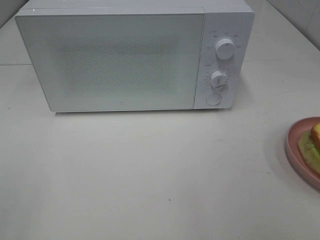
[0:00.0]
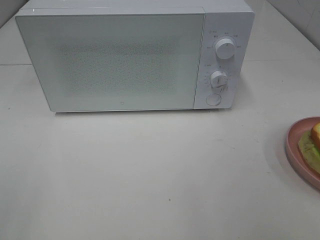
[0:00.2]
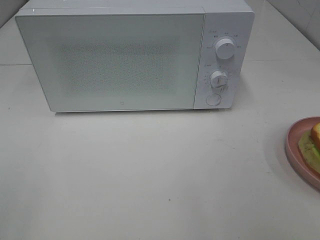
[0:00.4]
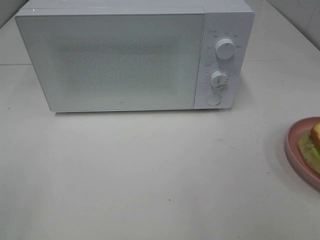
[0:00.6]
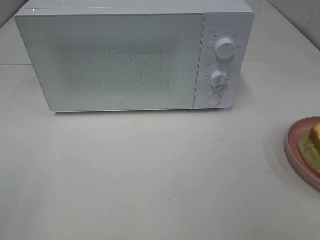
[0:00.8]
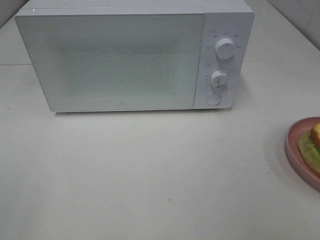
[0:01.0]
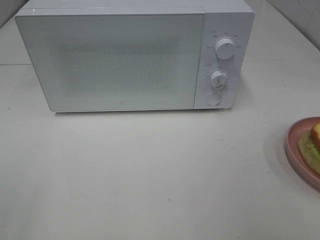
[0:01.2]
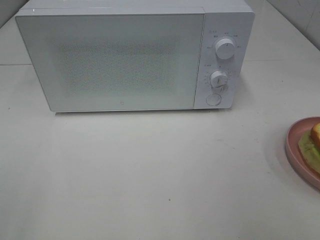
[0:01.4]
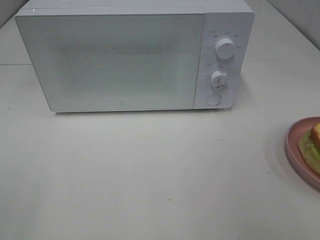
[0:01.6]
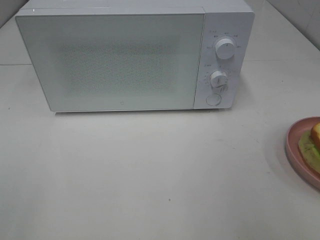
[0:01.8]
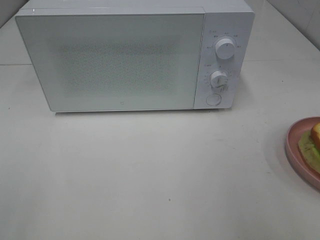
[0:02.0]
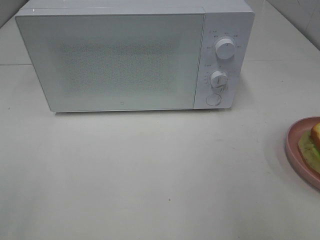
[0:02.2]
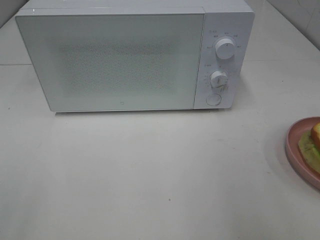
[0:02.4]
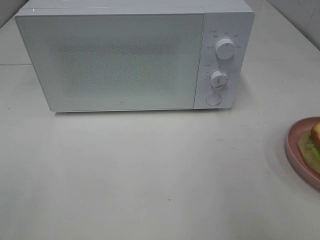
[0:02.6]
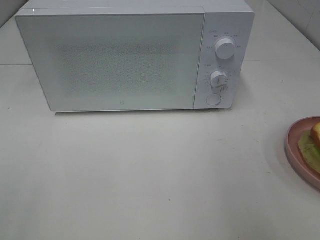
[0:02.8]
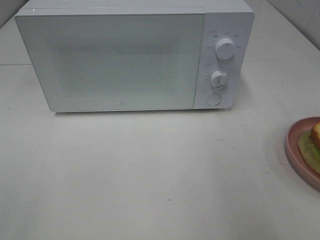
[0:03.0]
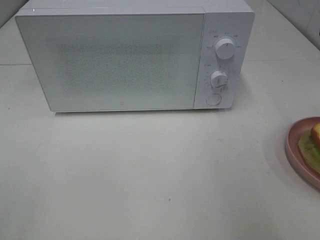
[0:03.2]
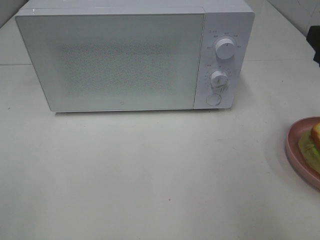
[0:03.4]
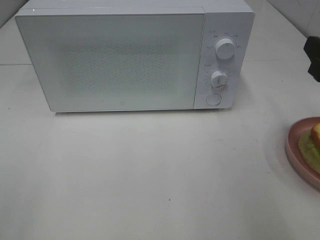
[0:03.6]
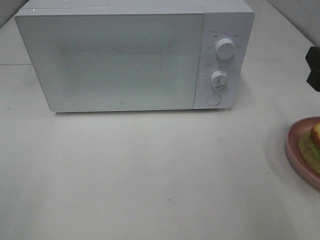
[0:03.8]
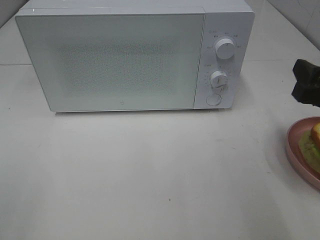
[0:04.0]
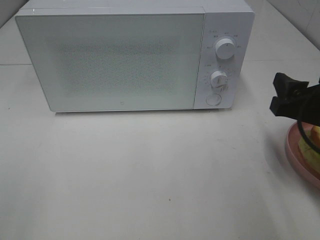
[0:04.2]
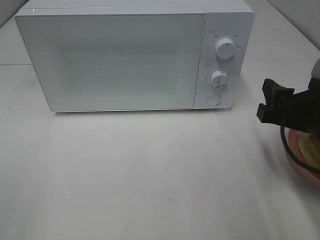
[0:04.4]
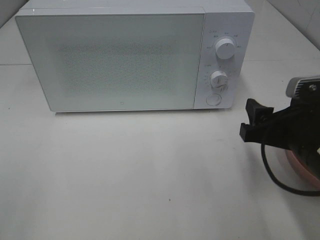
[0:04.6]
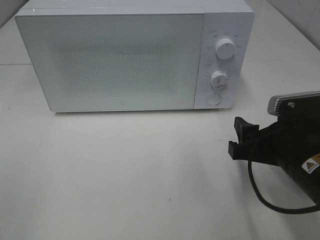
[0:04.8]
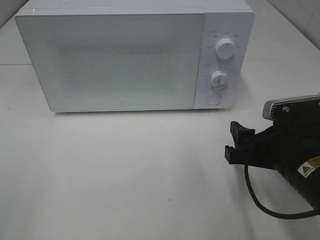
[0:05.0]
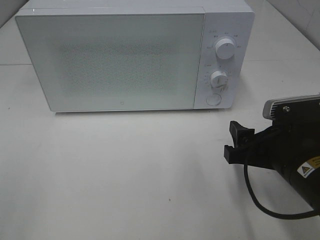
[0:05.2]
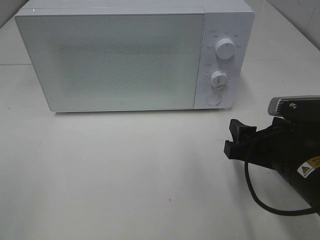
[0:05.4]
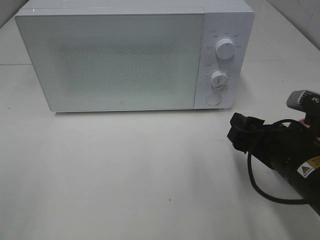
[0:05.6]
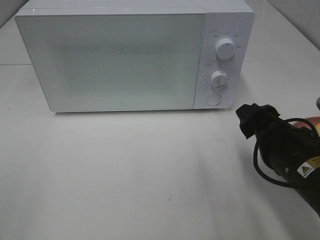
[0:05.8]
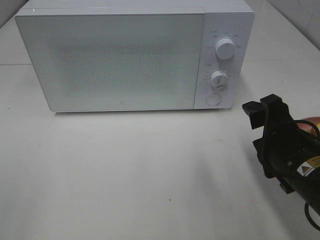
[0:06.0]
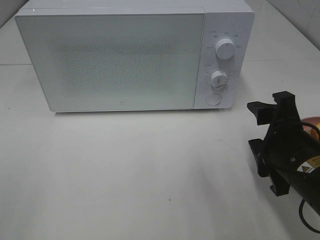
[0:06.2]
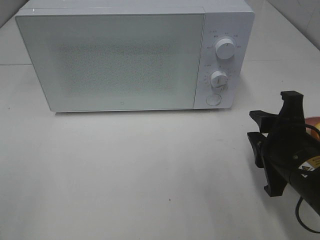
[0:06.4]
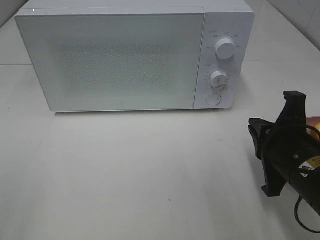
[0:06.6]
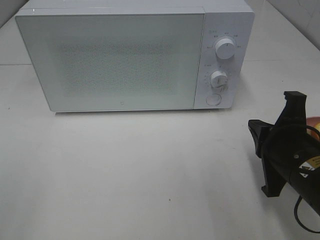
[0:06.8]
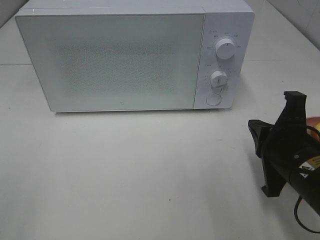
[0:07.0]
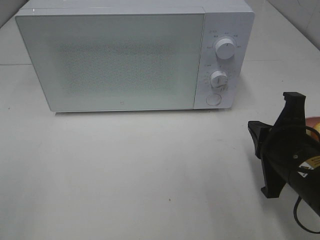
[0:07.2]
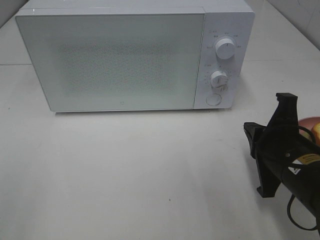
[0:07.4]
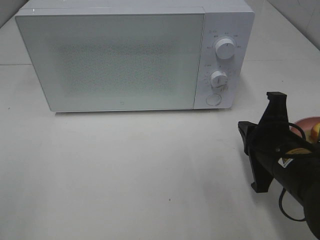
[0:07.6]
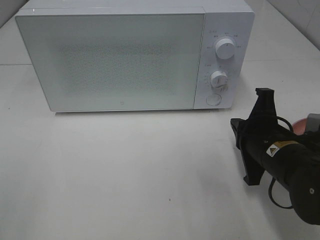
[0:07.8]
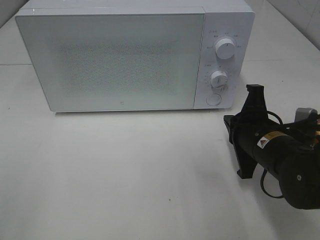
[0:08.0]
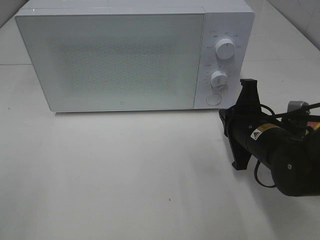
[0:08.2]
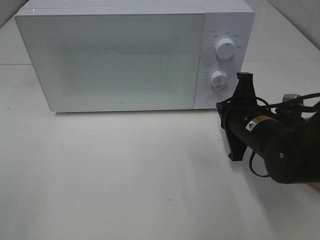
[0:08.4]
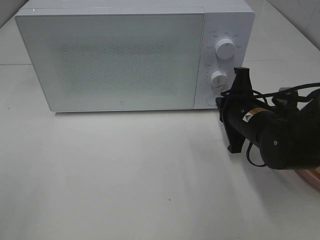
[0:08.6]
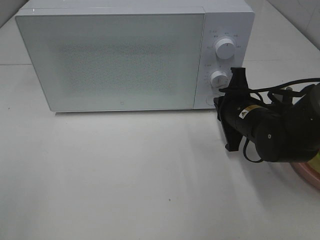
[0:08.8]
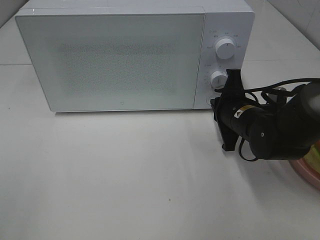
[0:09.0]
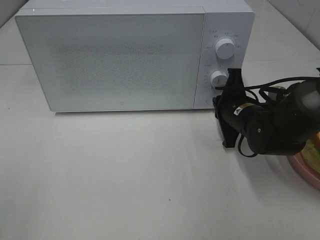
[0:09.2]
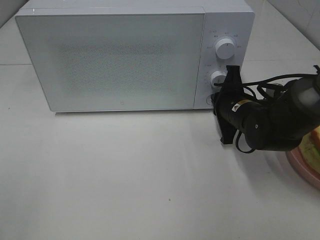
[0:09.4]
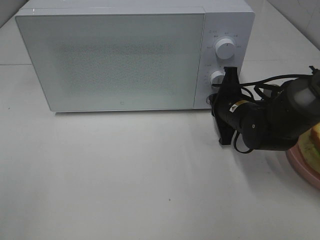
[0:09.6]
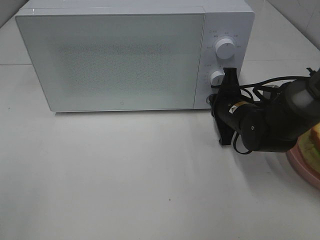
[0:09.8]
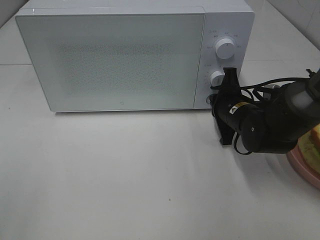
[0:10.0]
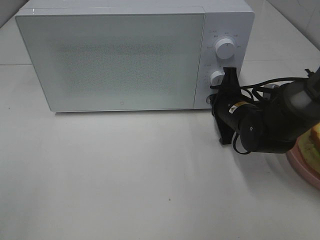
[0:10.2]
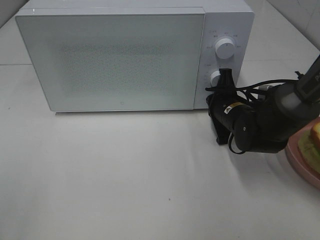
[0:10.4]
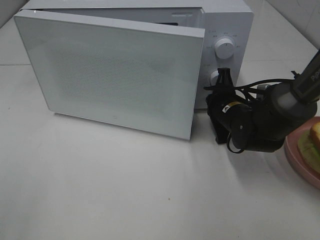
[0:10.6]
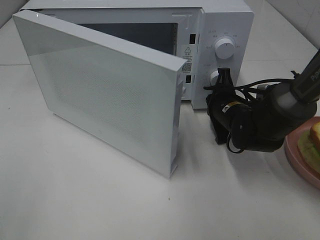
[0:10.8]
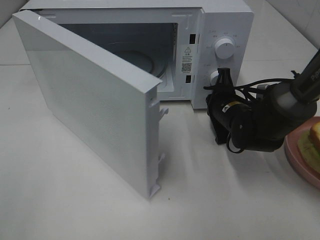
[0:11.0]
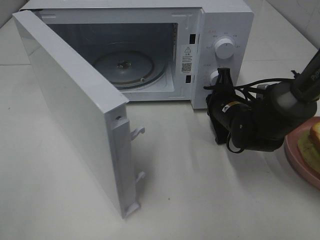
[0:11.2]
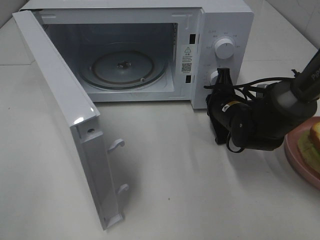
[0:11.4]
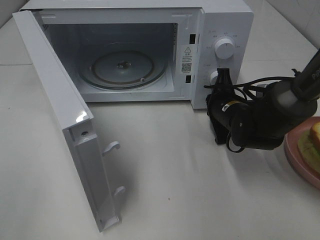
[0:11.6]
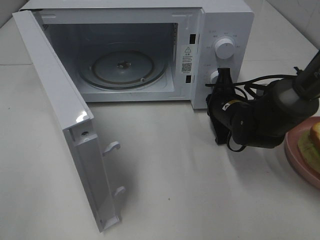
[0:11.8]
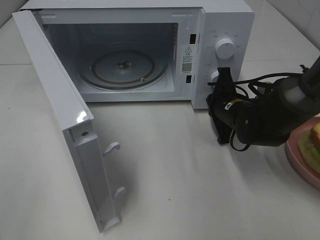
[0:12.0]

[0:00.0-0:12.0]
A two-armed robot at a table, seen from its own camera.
Task of the whole recording: Heat Sandwich.
0:03.0 to 0:04.4: The right gripper is displaced downward and to the left by roughly 15 cm.
0:04.4 to 0:06.0: The right gripper ends up approximately 5 cm from where it was.
0:06.0 to 0:07.6: The right gripper closes.
0:07.6 to 0:09.0: The right gripper is displaced forward by roughly 10 cm.
0:09.0 to 0:10.4: The grippers move only a little.

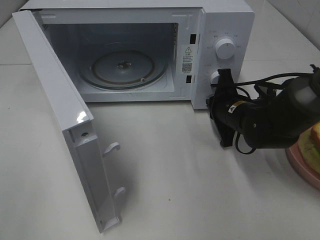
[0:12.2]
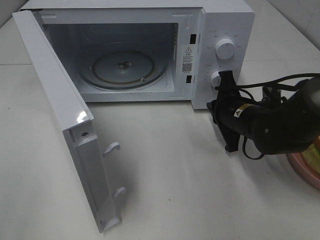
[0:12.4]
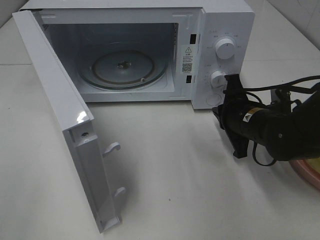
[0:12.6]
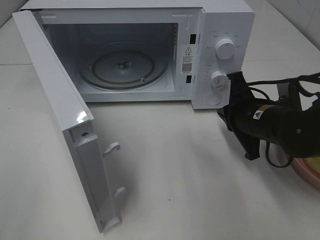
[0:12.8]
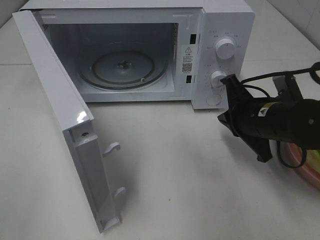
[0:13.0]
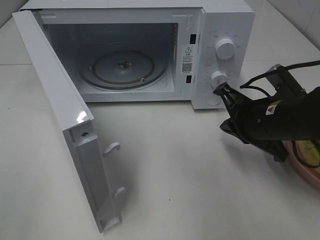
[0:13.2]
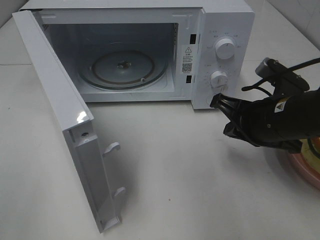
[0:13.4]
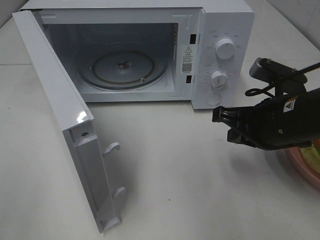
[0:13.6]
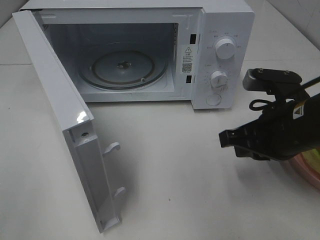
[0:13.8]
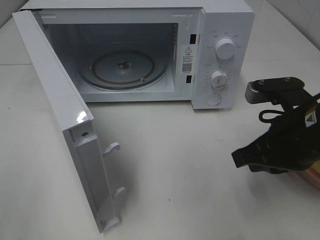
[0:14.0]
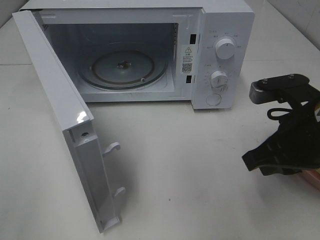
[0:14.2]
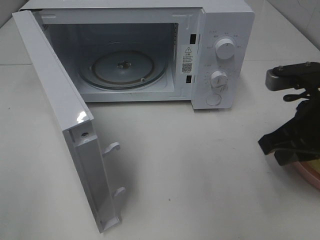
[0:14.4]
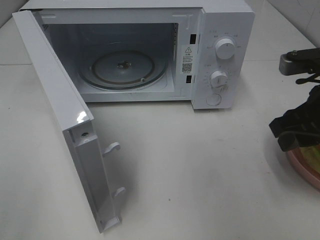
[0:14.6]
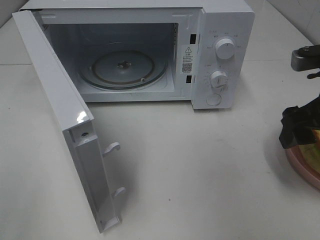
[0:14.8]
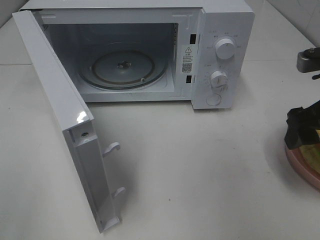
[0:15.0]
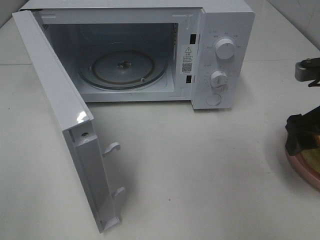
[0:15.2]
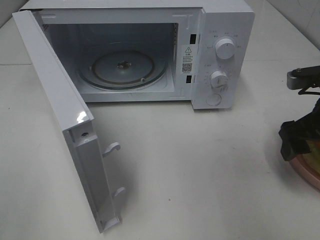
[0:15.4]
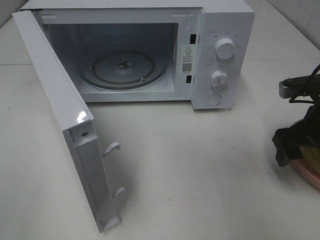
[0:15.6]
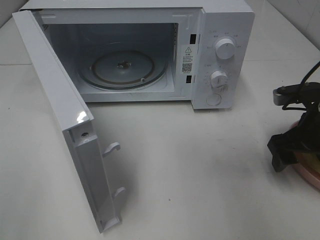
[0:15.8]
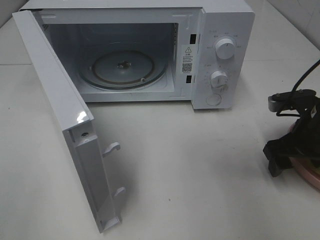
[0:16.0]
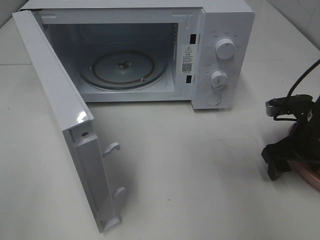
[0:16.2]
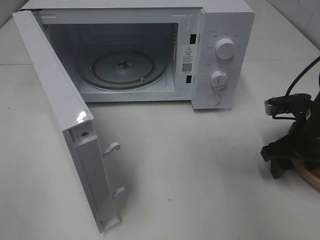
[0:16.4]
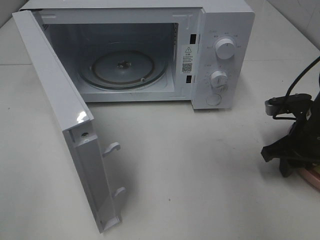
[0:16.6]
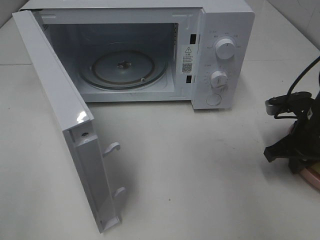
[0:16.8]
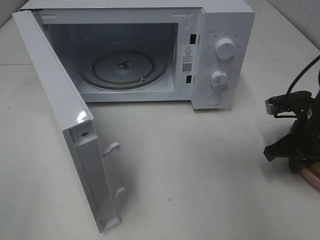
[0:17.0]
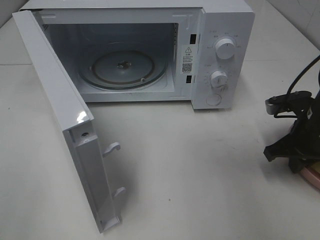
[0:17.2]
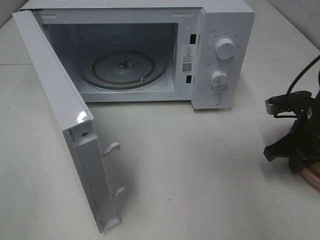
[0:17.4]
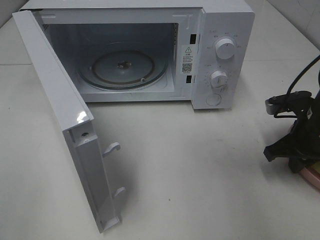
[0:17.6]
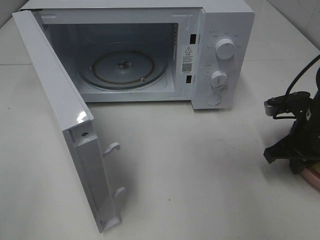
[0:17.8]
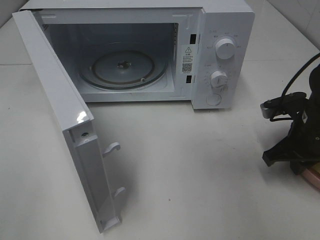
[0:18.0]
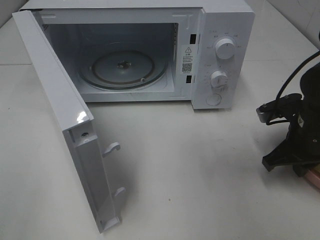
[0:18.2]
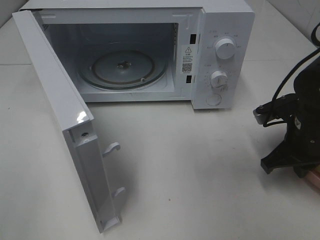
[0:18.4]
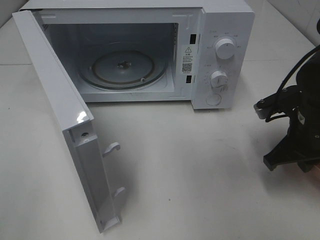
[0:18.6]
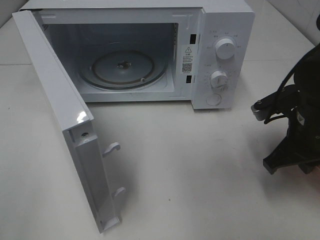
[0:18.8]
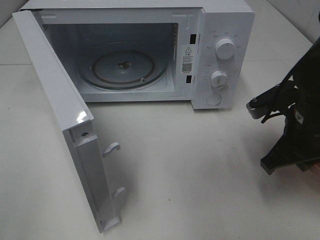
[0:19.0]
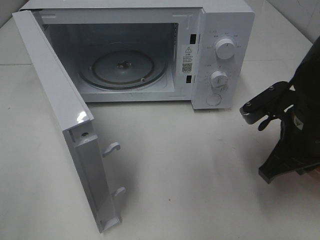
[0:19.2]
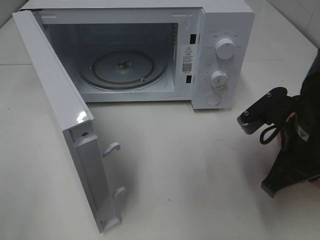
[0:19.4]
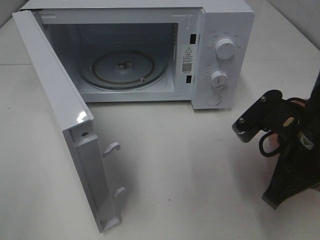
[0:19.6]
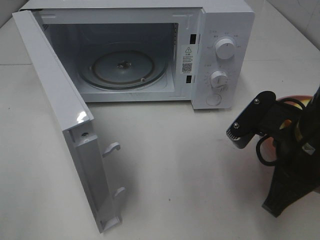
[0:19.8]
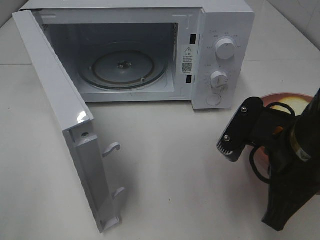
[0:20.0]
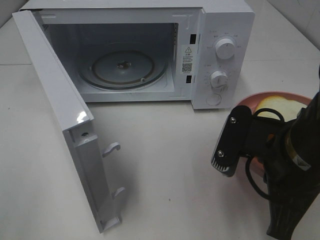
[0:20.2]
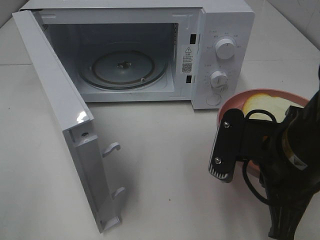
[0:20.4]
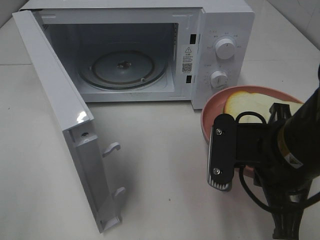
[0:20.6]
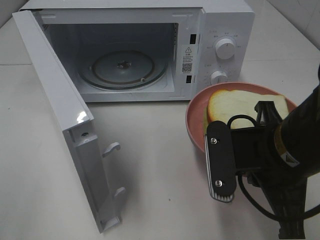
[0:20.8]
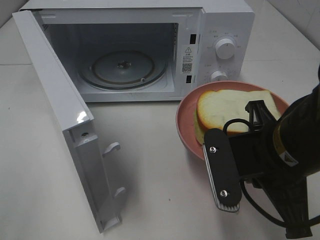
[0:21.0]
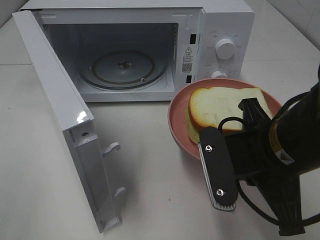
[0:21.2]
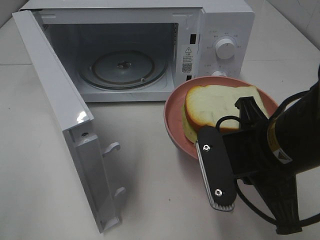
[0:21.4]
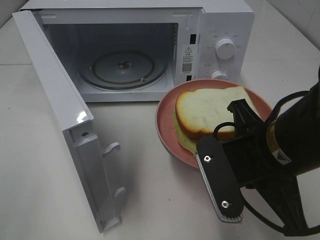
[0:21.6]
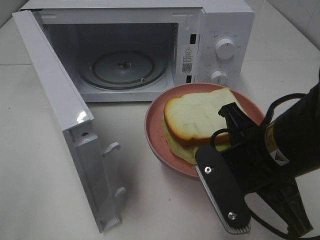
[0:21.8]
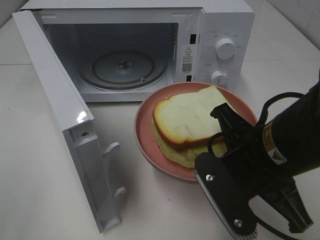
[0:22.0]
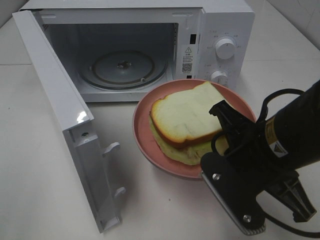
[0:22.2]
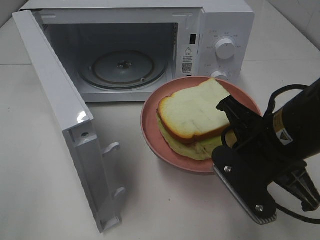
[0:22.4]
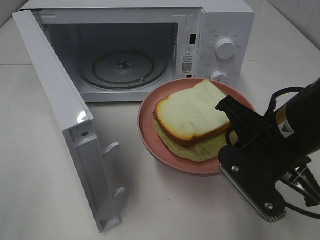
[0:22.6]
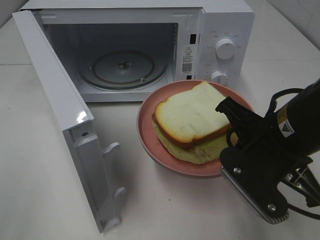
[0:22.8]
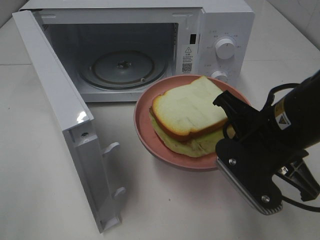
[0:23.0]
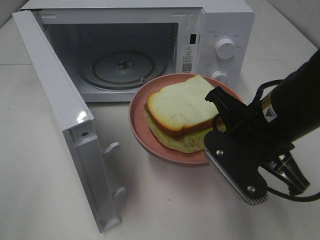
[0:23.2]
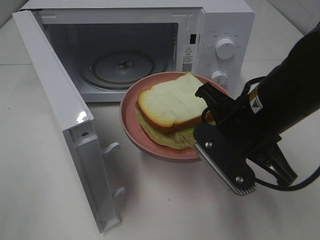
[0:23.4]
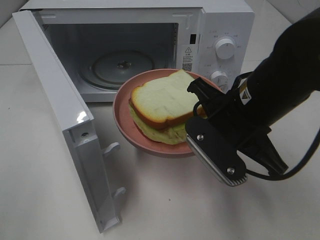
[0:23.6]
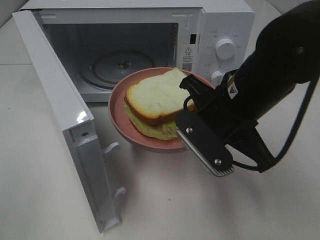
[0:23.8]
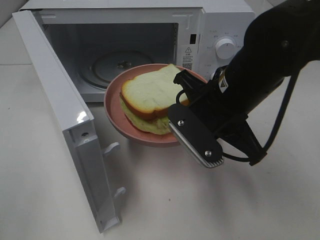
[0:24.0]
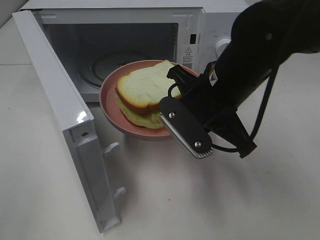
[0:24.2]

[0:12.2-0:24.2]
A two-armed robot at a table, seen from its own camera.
Task of the whole recording: Heat Sandwich.
Step, 0:12.6 to 0:17.4: Right hand: grab the plate with the sandwich.
0:12.2 to 0:13.8: The right gripper is displaced backward and upward by some 15 cm.
0:13.8 to 0:15.2: The right gripper is displaced to the right by about 10 cm, and opens up.
0:15.2 to 0:16.6: The right gripper shifts some 10 cm downward, and closes up.
0:16.6 to 0:18.2: The right gripper closes up.
0:18.2 to 0:19.8: The right gripper goes roughly 15 cm backward, to the left and upward.
0:22.6 to 0:24.2: The right gripper shifts some 10 cm forward and to the left.
